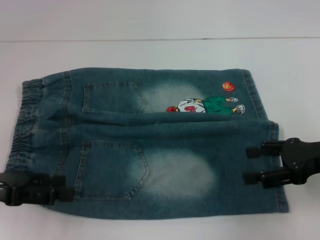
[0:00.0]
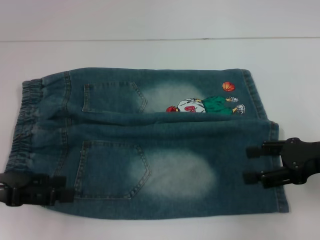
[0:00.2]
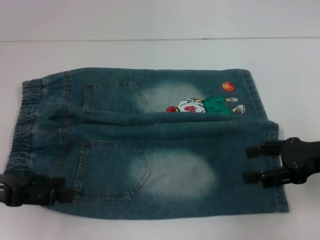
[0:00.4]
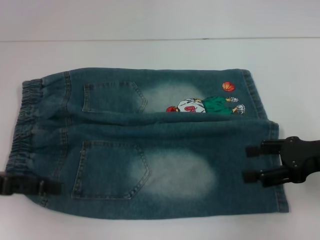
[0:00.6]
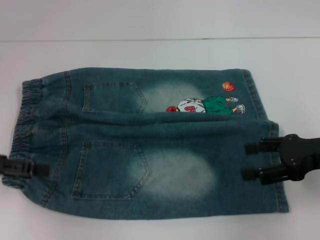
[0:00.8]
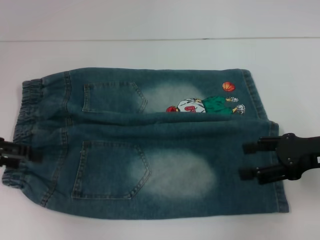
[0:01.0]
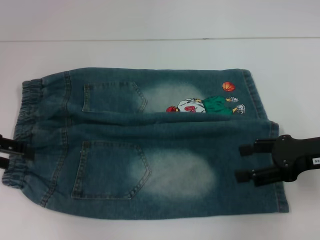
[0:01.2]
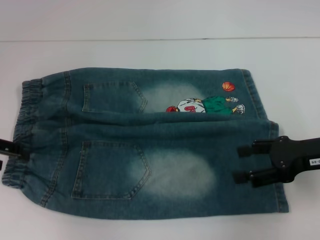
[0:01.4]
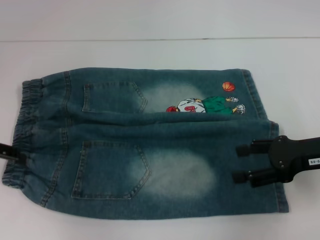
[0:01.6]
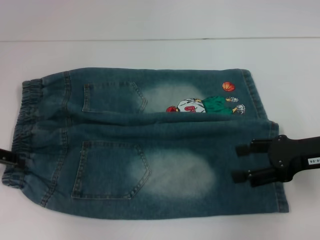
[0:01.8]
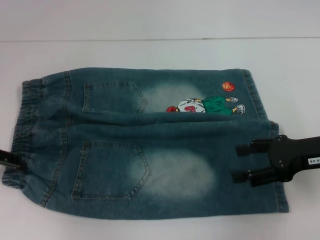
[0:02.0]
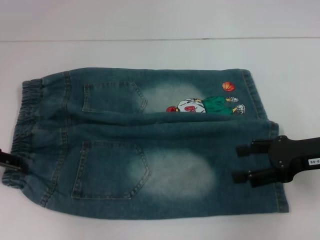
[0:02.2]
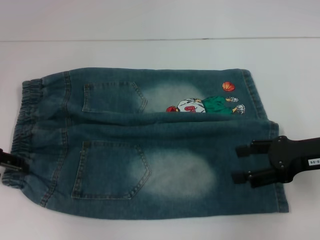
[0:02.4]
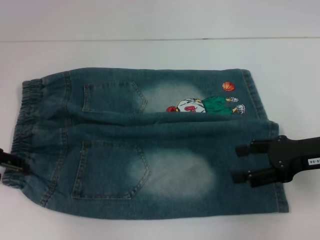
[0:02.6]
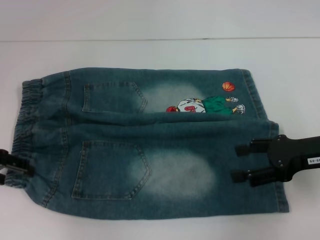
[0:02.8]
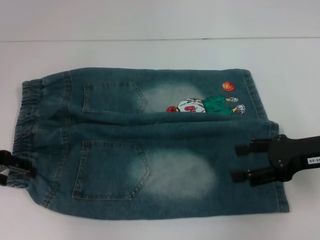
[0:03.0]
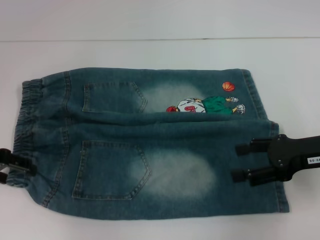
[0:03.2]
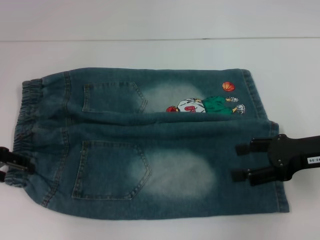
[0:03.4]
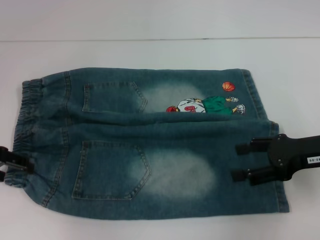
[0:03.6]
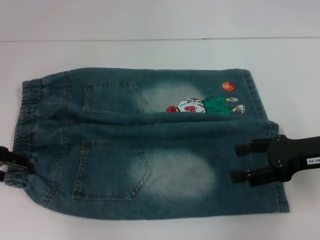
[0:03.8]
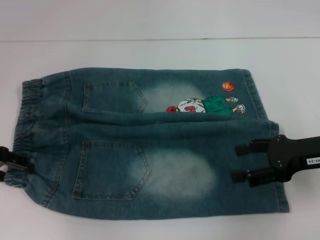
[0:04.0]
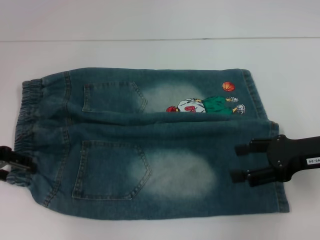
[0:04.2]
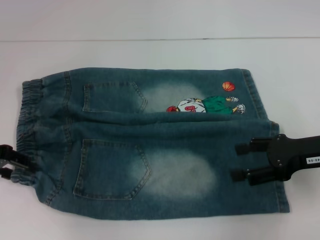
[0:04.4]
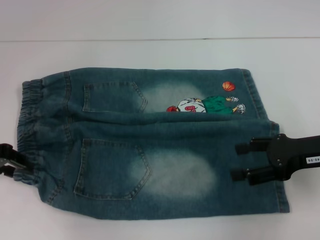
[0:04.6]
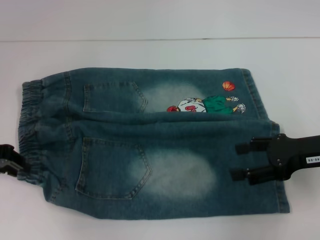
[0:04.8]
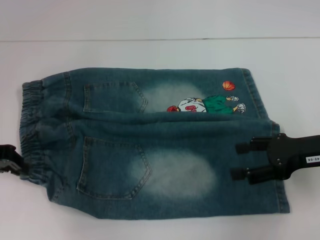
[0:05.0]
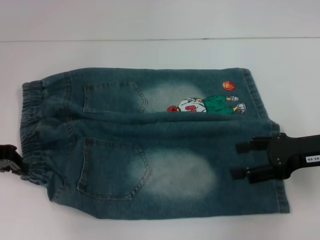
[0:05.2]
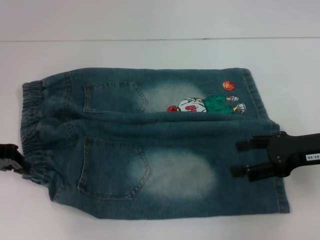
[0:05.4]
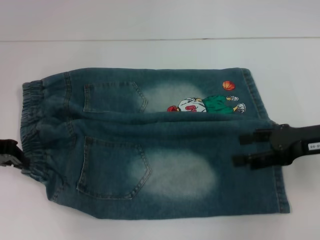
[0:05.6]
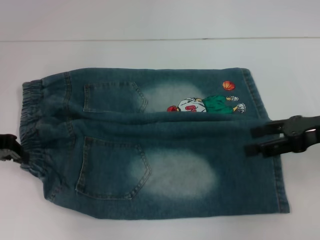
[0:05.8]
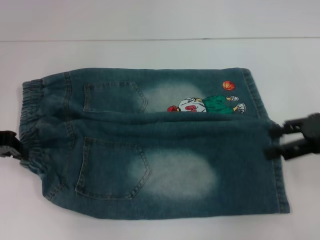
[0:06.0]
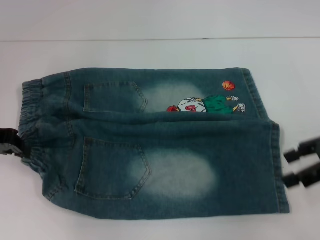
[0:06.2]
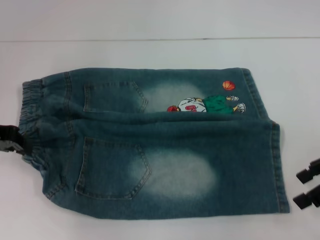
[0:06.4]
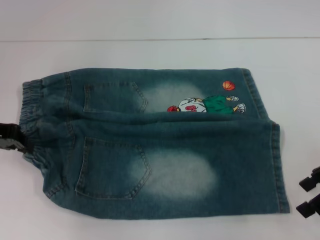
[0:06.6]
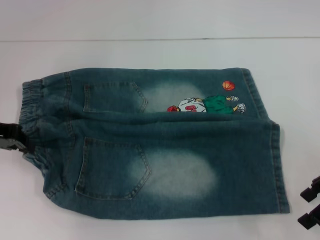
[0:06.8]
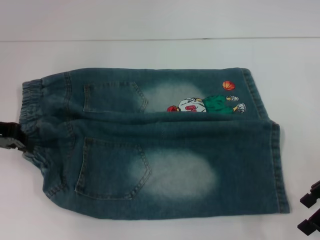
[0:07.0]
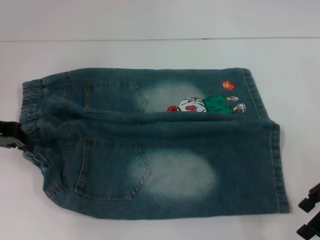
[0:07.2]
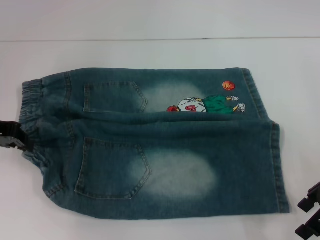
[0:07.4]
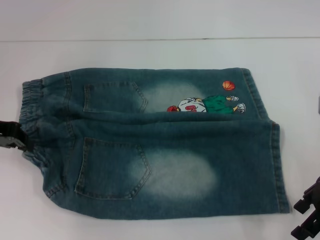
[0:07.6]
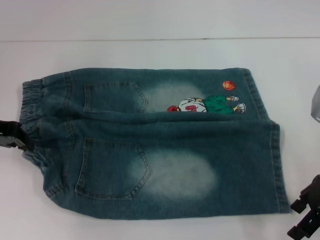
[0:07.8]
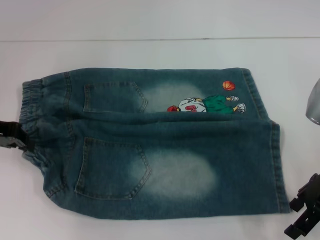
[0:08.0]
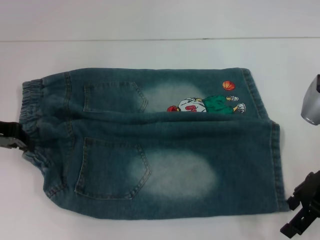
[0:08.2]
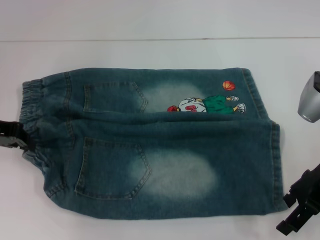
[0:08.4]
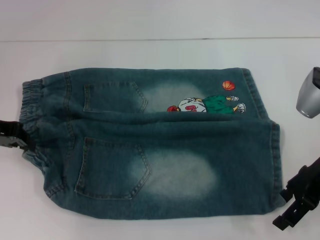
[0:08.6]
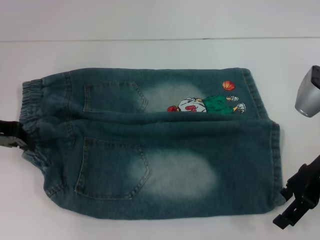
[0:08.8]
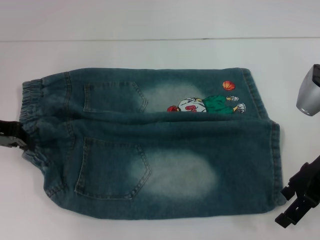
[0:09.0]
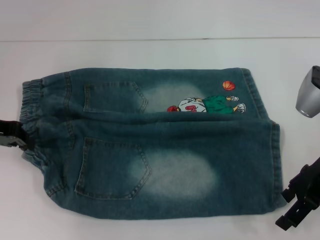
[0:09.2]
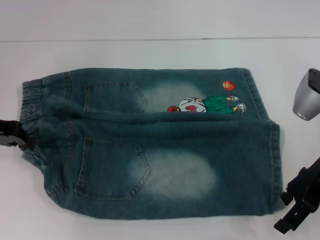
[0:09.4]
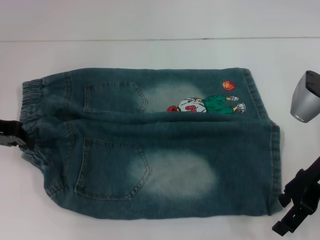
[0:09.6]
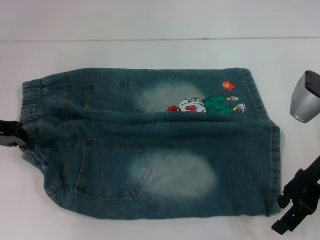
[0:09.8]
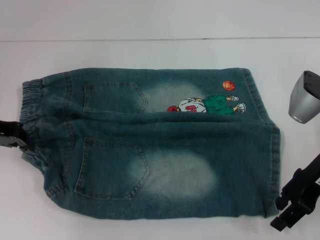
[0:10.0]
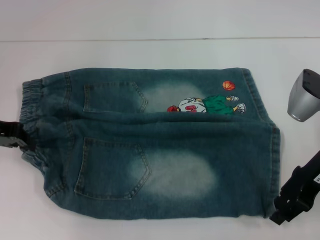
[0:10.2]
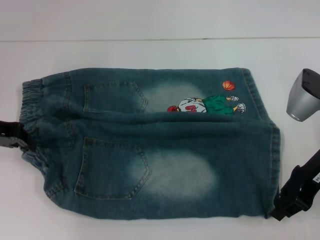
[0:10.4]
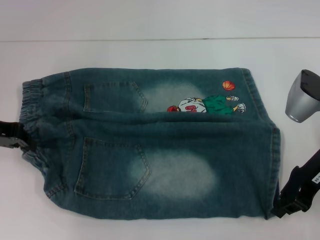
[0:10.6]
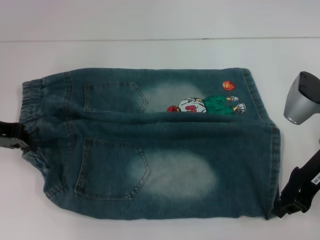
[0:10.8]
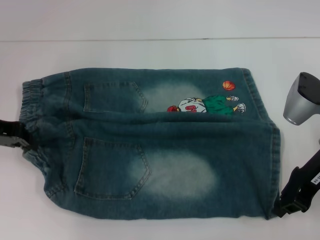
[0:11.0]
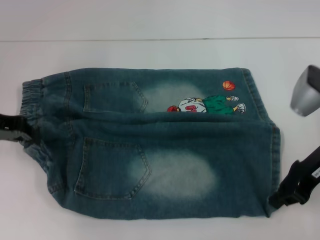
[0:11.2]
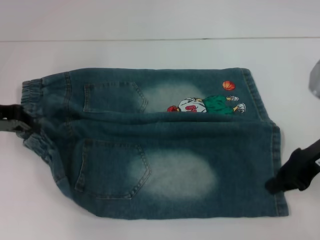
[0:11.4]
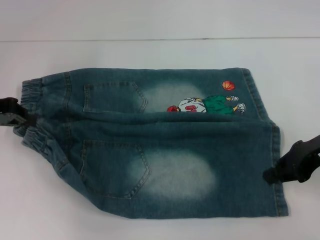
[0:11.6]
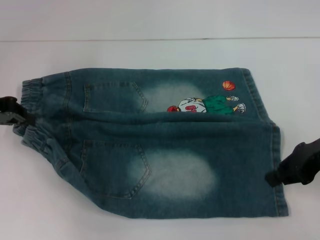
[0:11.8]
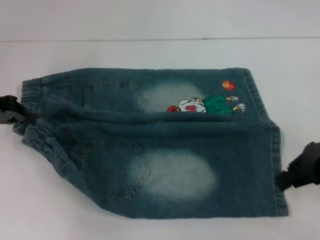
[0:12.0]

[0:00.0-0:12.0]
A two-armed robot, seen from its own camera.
Step, 0:00.0 to 0:05.2: Hold the lower left waistband with your left hand.
0:00.0 to 0:01.6: The left gripper heads forward, covering about 10 cm.
0:01.6 to 0:03.0: The grippers stay close to where they were, moving slightly.
0:03.0 to 0:04.4: Neither gripper changes place.
0:04.4 to 0:06.0: The left gripper closes. Meanwhile the right gripper moves about 5 cm.
0:07.6 to 0:09.0: The grippers stay close to where they were, moving slightly.
0:09.0 to 0:10.4: Both grippers stay about where they are.
0:10.4 to 0:12.0: The right gripper closes up.

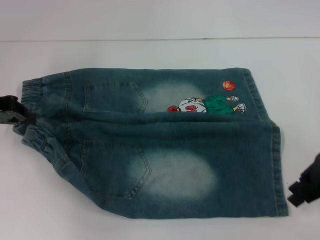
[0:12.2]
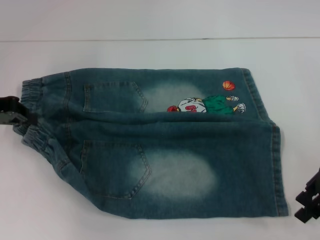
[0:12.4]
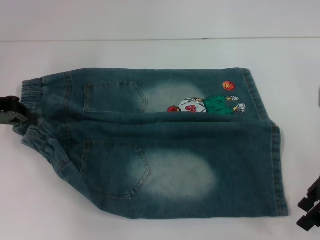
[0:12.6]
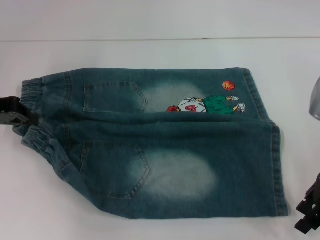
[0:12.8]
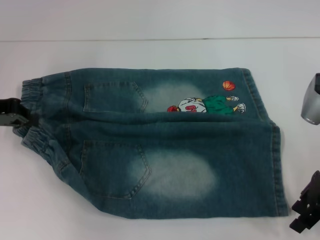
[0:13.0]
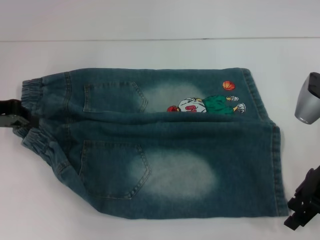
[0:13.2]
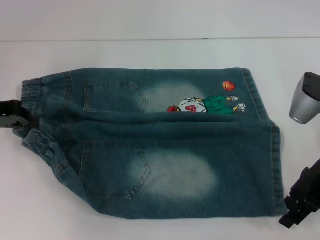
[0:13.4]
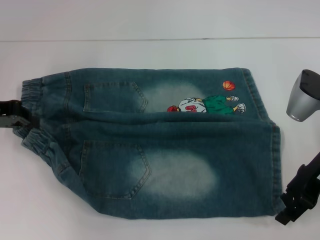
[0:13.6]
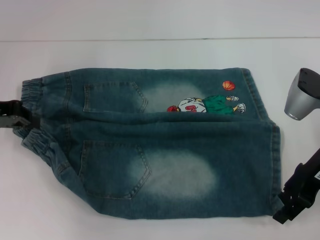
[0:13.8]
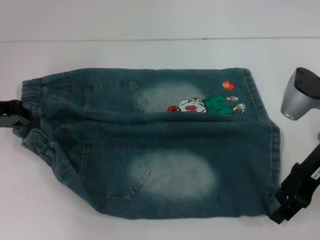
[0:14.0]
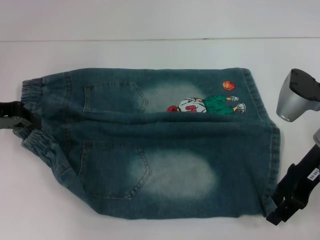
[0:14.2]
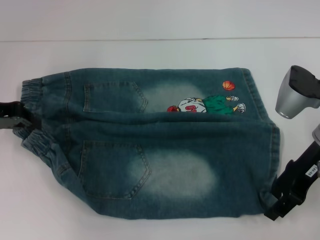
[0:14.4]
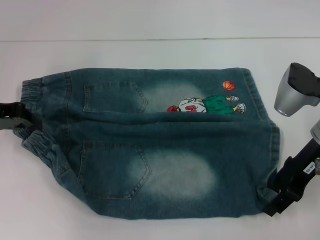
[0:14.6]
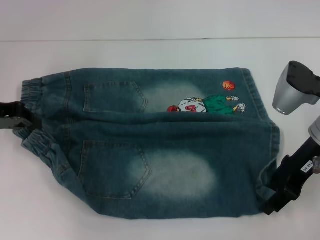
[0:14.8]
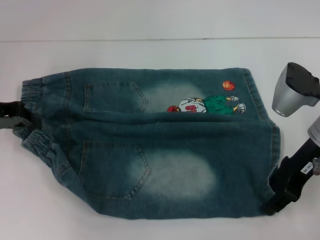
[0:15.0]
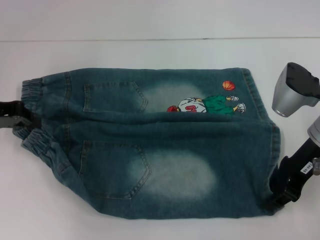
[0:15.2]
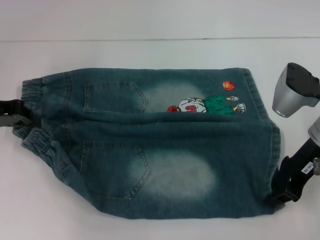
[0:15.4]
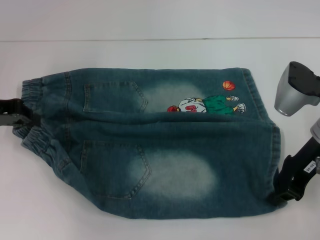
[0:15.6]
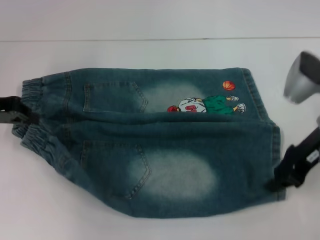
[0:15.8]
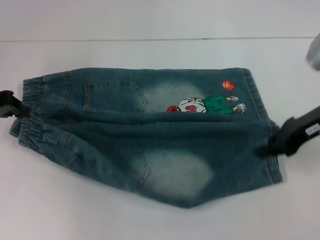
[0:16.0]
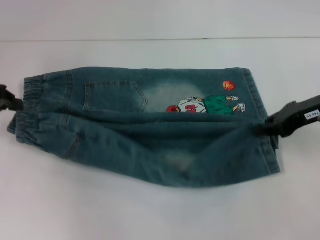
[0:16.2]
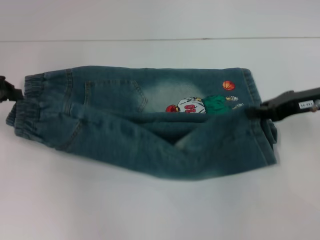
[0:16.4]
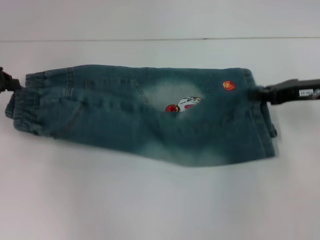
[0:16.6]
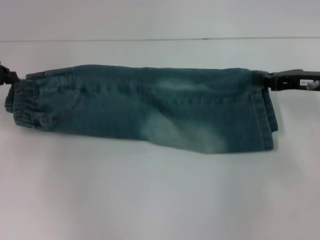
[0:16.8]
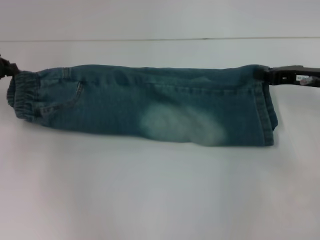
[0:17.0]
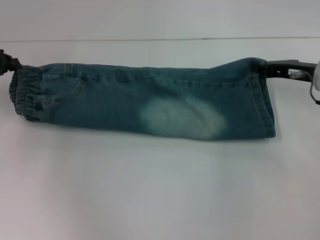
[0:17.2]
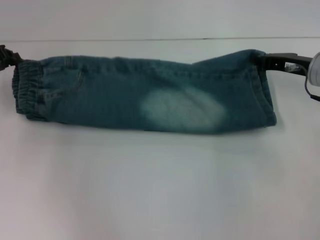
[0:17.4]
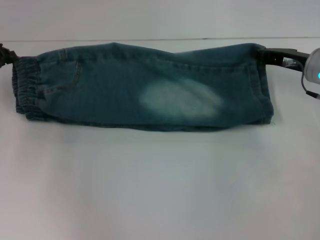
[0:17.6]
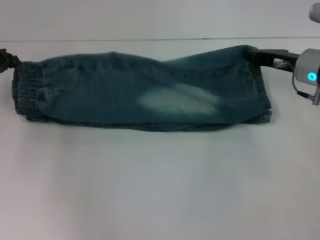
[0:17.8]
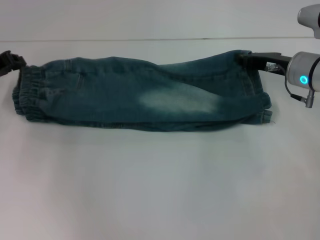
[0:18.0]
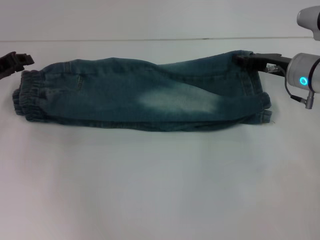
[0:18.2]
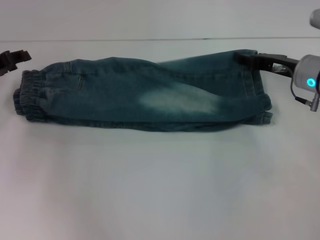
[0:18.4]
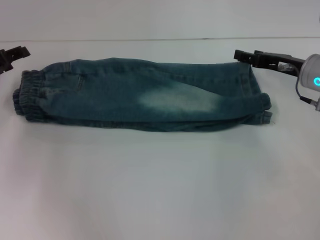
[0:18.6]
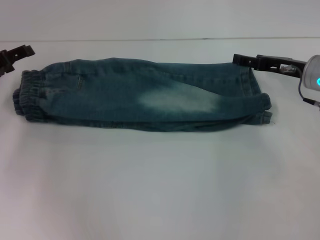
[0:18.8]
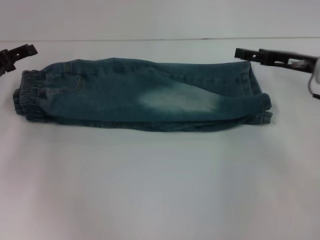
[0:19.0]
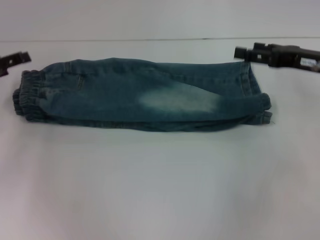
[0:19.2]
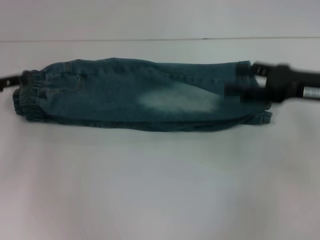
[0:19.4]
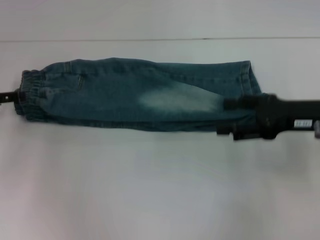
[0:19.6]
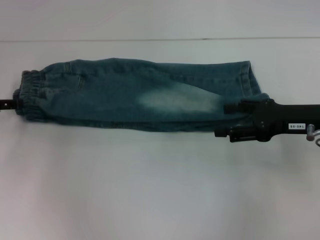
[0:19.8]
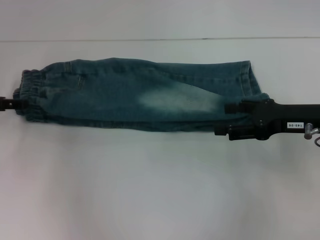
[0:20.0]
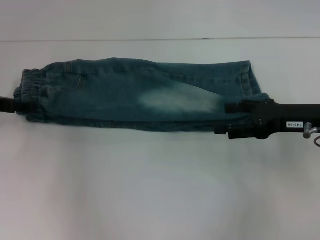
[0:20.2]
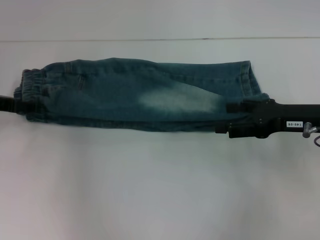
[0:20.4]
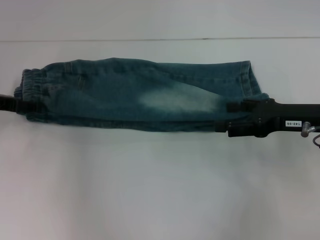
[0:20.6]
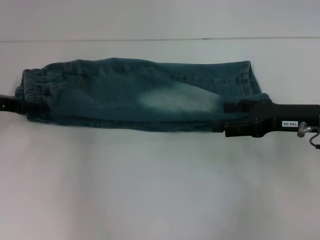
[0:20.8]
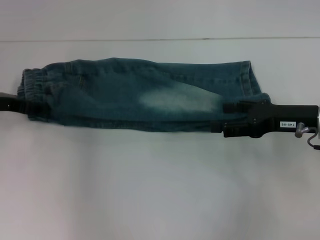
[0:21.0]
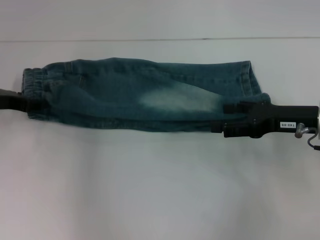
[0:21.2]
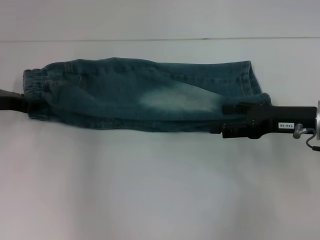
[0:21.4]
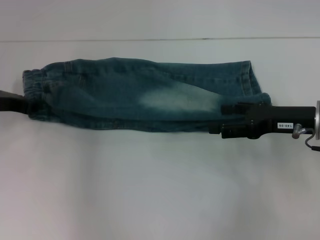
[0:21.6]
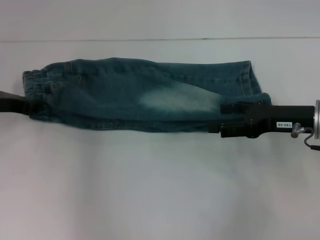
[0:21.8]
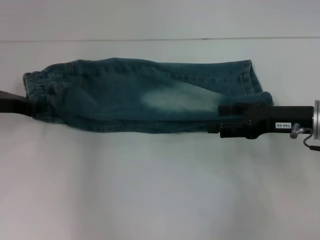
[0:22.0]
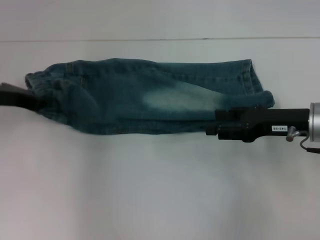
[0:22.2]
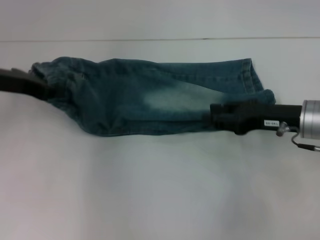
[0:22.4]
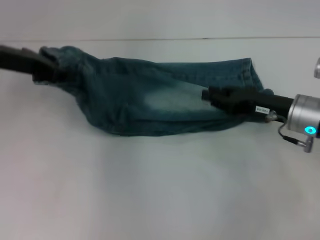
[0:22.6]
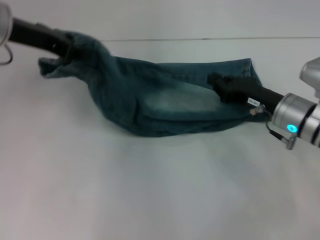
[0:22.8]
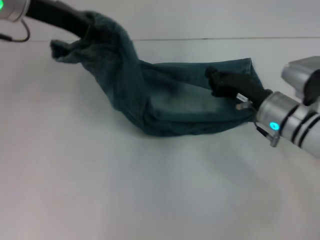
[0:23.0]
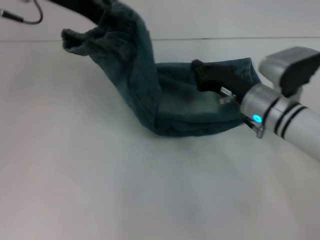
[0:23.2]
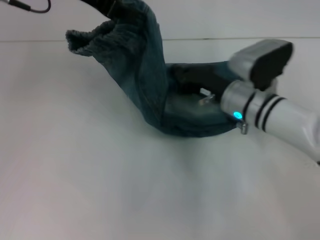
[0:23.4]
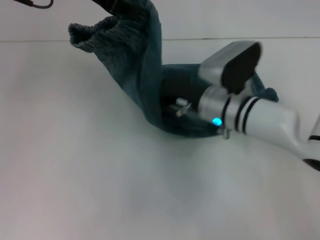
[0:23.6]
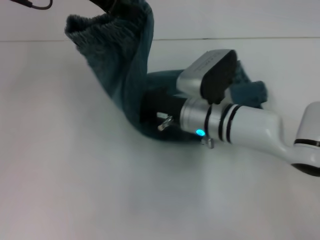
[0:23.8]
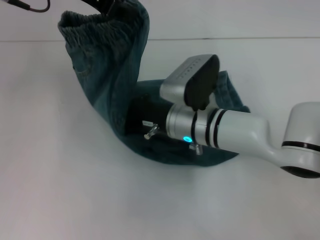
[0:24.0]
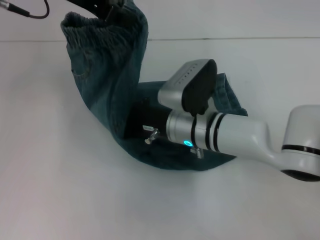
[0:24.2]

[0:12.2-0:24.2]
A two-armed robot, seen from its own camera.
Step, 0:12.2 to 0:15.6: Grab the lower right pant leg with your right hand.
Step, 0:15.8 to 0:19.0: Fold upward with your right hand.
Step, 0:19.2 to 0:22.2: Hold the waistband with your left hand.
0:12.2 to 0:13.8: The right gripper ends up some 5 cm from where it was, and opens up.
0:13.8 to 0:15.2: There are only small adjustments of the grippers.
0:15.2 to 0:16.6: The right gripper goes roughly 5 cm to the right, and closes.
0:16.6 to 0:18.2: The left gripper moves roughly 5 cm; the right gripper shifts by roughly 5 cm.
0:18.2 to 0:19.8: The right gripper shifts some 10 cm backward, and opens up. Meanwhile the left gripper ends up roughly 5 cm from where it was, and opens.
0:19.8 to 0:21.2: The left gripper goes about 5 cm to the right.
0:21.2 to 0:22.6: The right gripper closes; the left gripper travels upward by about 10 cm, and closes up.
0:22.6 to 0:24.2: The left gripper moves upward and to the right, roughly 15 cm; the right gripper heads to the left, covering some 20 cm, and closes.
